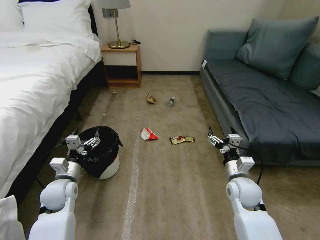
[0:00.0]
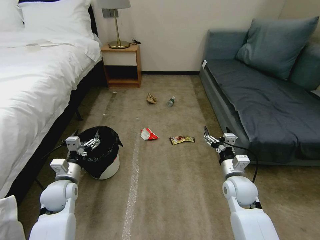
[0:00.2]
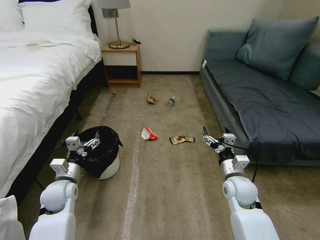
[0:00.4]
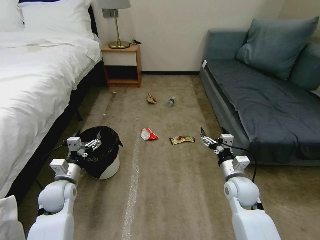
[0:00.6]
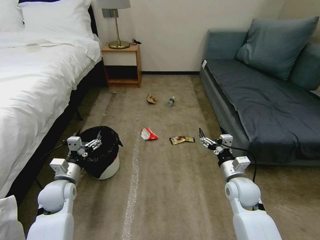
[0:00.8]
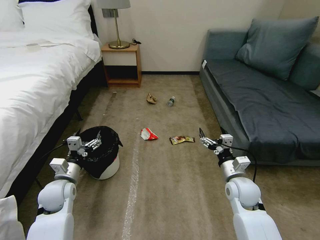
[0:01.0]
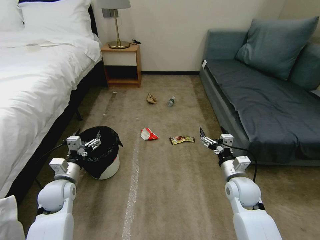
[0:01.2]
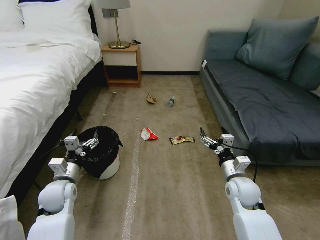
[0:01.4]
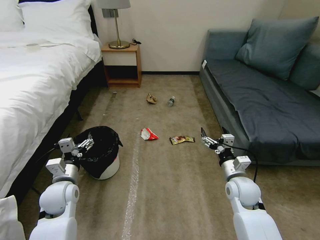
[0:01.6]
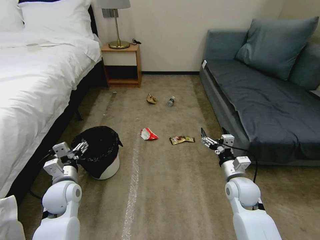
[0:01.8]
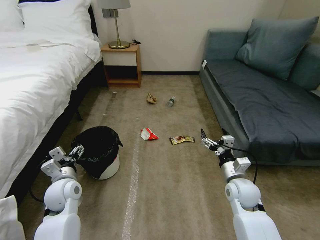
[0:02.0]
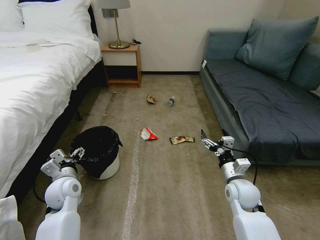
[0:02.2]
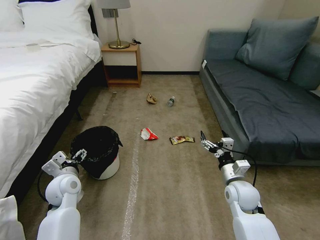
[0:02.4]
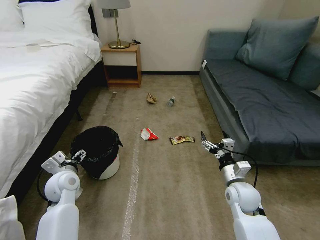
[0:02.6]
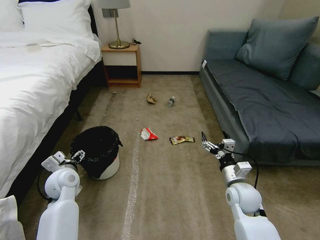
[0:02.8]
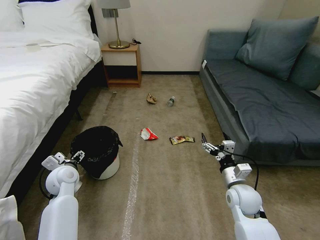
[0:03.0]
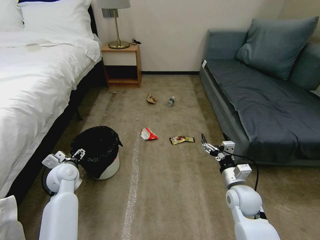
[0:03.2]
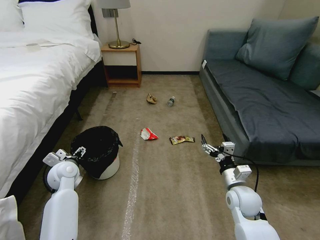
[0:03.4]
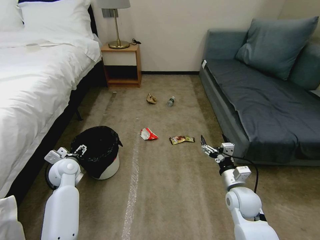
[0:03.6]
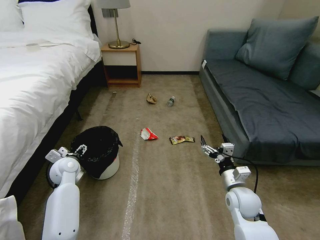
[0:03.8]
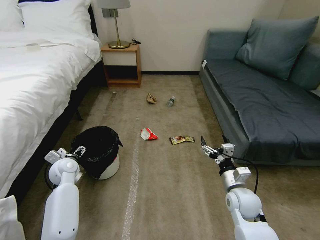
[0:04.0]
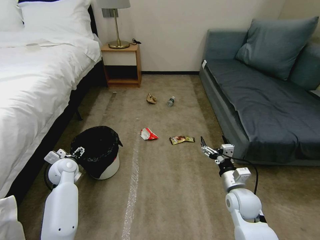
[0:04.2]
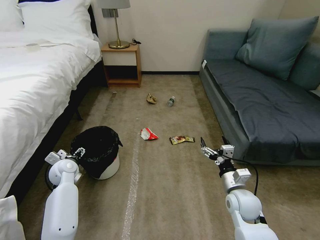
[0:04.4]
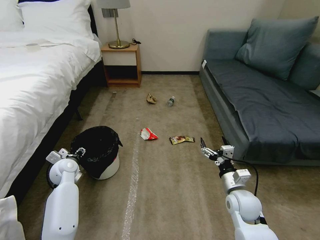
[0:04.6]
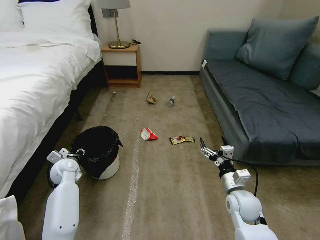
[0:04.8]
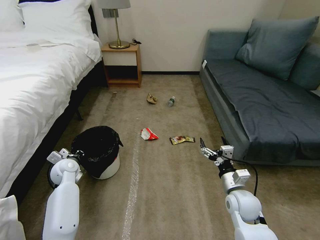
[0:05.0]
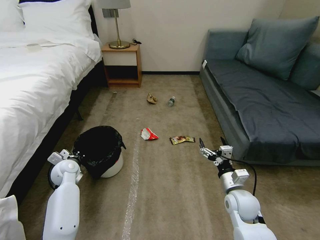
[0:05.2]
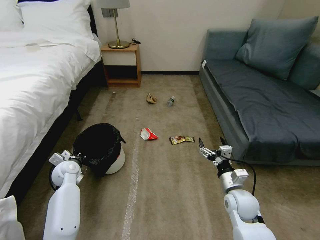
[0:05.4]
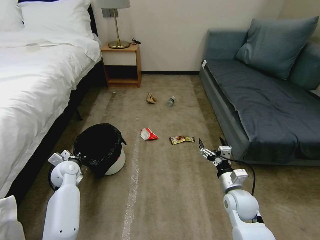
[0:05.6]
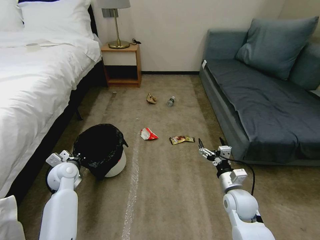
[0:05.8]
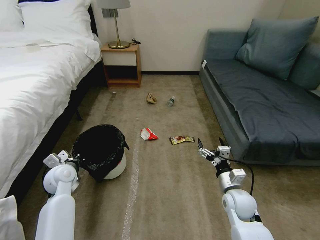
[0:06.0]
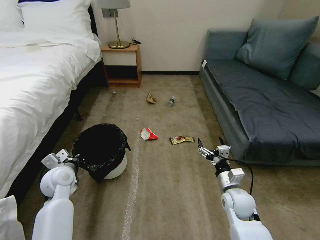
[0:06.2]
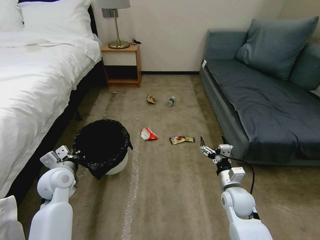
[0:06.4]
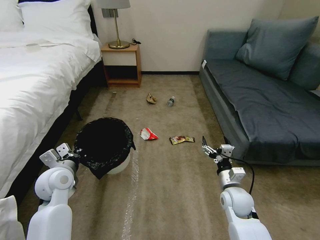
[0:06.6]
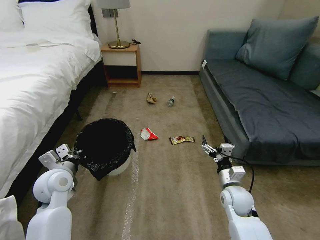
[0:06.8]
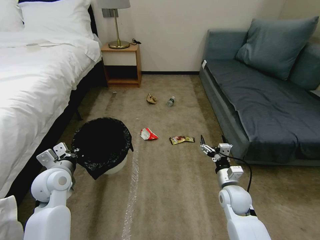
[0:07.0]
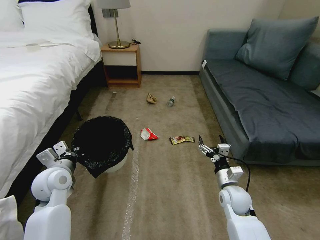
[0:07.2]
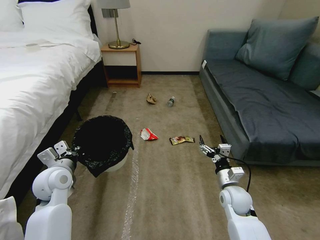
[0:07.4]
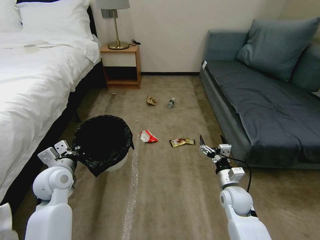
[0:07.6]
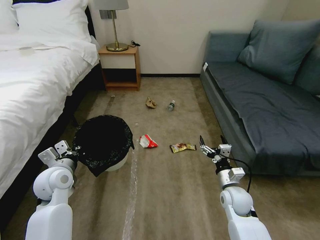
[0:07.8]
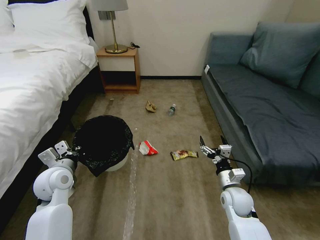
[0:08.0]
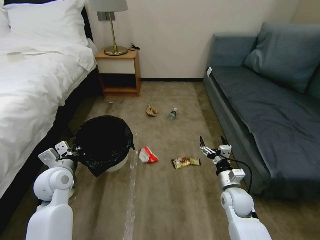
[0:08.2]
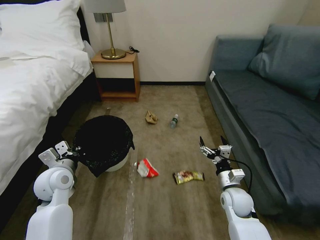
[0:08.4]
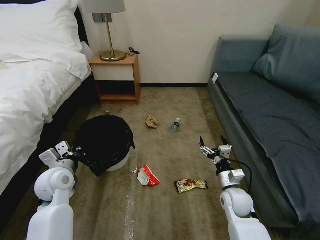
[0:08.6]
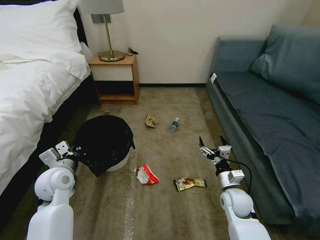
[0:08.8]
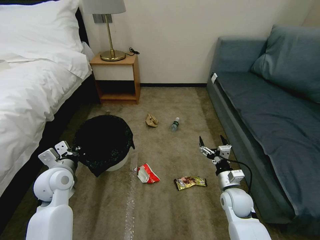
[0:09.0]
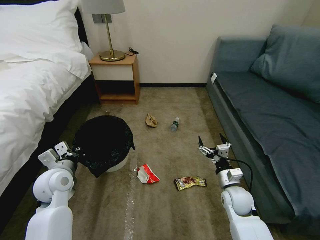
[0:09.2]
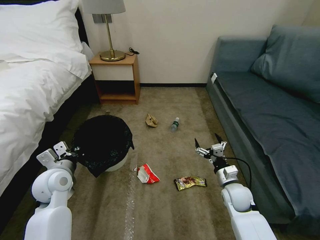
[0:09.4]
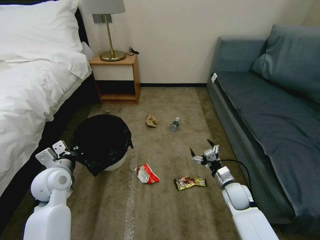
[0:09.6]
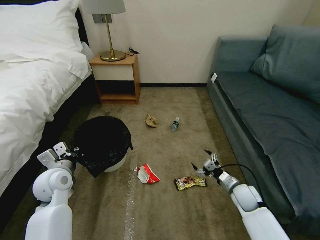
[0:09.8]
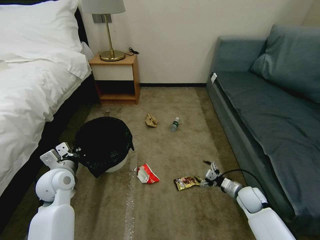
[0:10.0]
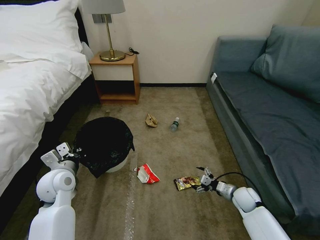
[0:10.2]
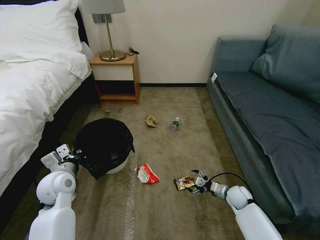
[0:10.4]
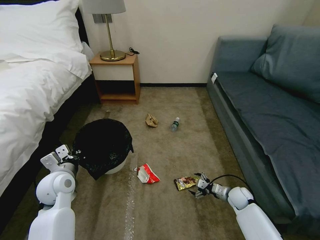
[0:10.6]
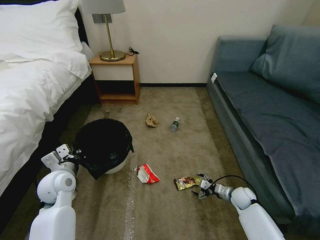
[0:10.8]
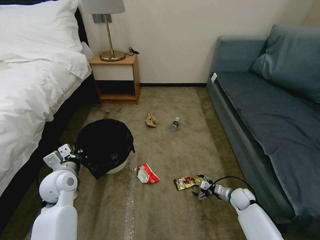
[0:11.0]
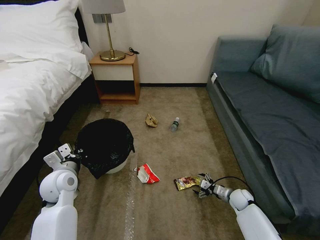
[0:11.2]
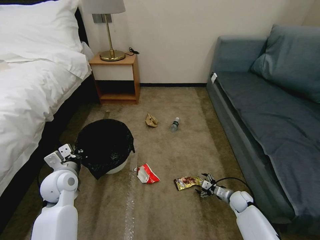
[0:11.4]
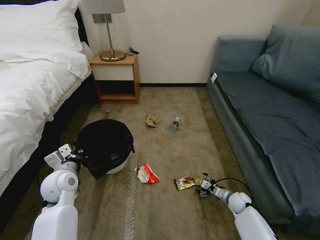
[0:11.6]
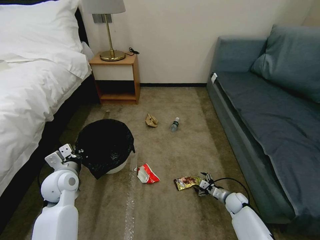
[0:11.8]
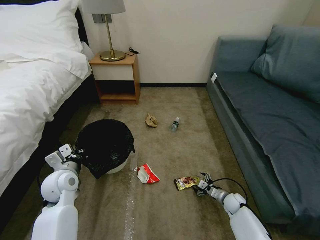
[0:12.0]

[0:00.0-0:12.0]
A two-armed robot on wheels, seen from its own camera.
Task of the whole recording: Pick up the trash bin, then pick up the garbage on the floor and place it into the trash bin.
0:01.6 to 0:03.0: The left gripper goes some 5 cm forward.
0:03.0 to 0:04.4: The left gripper ends up about 5 cm from where it was.
0:04.4 to 0:06.0: The left gripper changes place by roughly 5 cm, and closes up.
0:06.0 to 0:07.6: The left gripper travels upward by about 5 cm.
0:09.0 to 0:10.4: The right gripper goes roughly 15 cm downward, to the right and forward.
0:10.4 to 0:12.0: The right gripper goes about 5 cm downward.

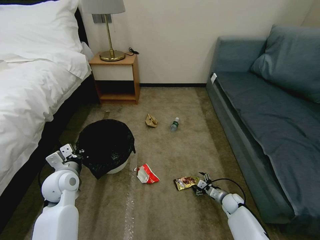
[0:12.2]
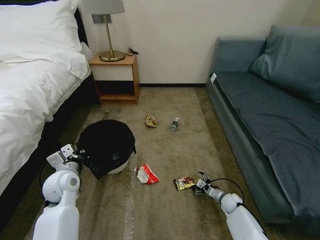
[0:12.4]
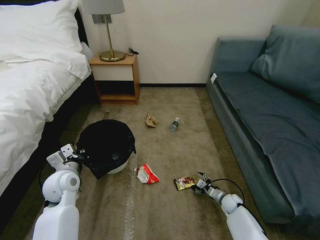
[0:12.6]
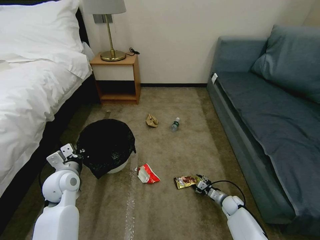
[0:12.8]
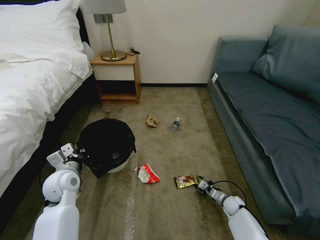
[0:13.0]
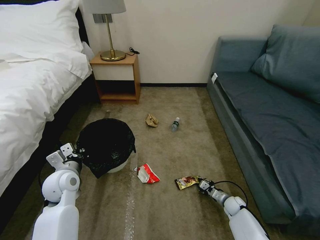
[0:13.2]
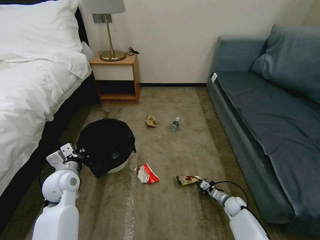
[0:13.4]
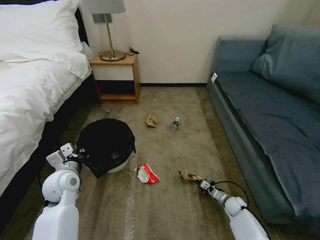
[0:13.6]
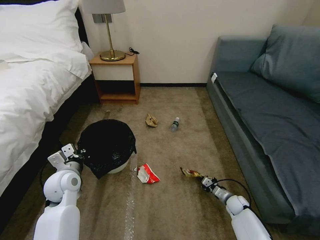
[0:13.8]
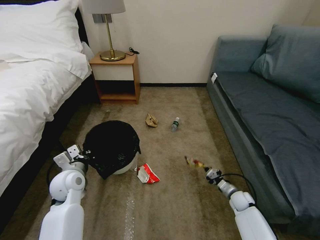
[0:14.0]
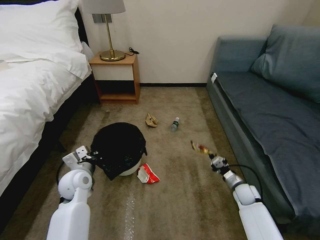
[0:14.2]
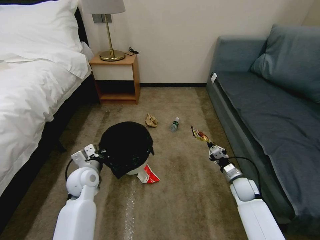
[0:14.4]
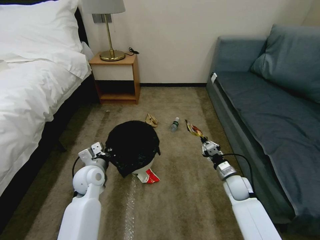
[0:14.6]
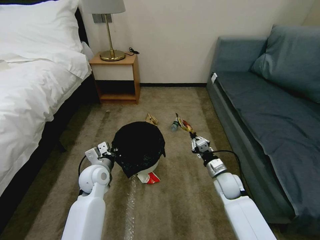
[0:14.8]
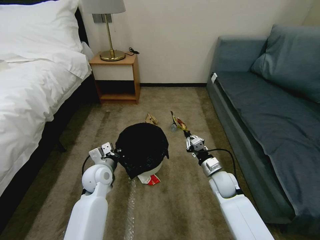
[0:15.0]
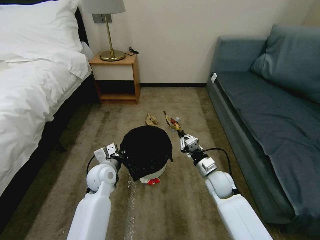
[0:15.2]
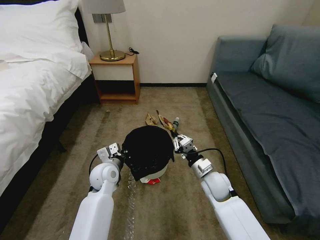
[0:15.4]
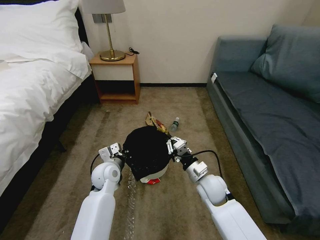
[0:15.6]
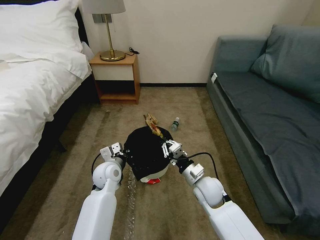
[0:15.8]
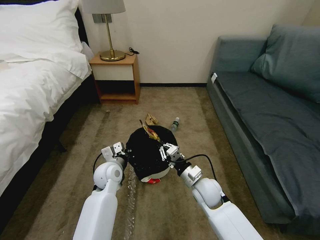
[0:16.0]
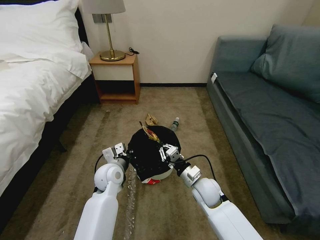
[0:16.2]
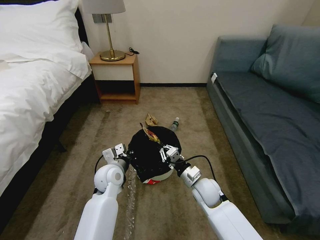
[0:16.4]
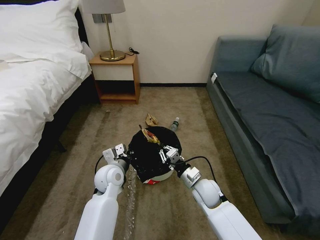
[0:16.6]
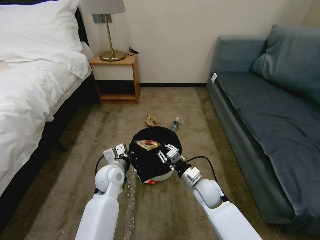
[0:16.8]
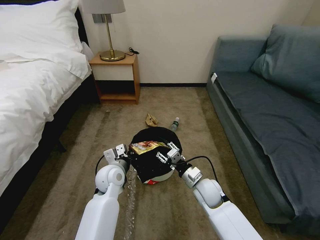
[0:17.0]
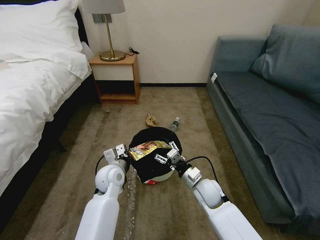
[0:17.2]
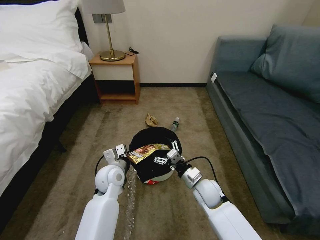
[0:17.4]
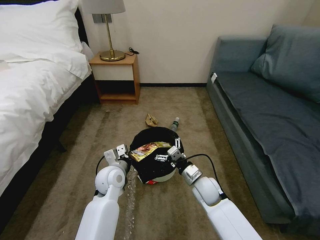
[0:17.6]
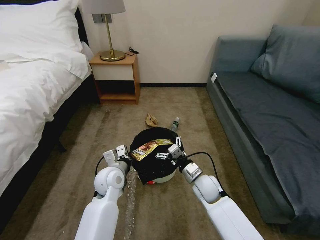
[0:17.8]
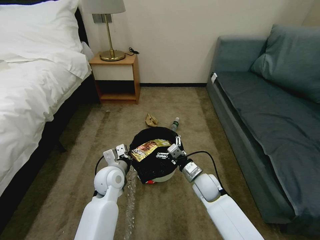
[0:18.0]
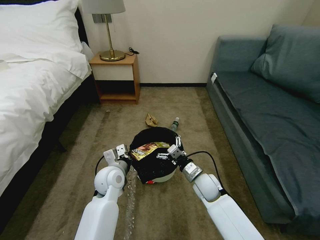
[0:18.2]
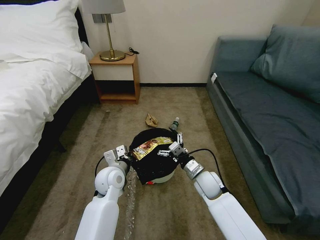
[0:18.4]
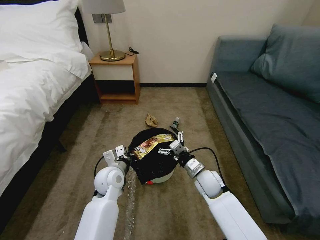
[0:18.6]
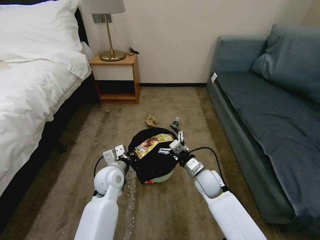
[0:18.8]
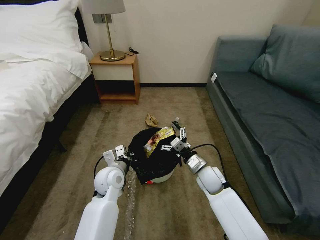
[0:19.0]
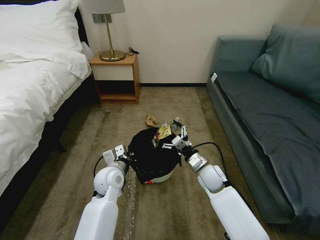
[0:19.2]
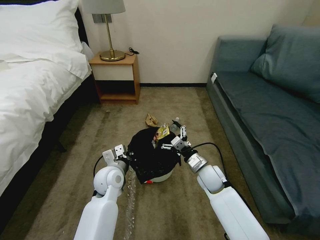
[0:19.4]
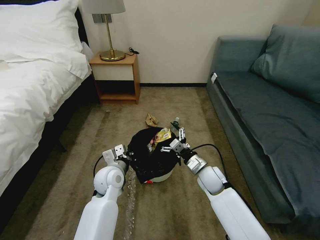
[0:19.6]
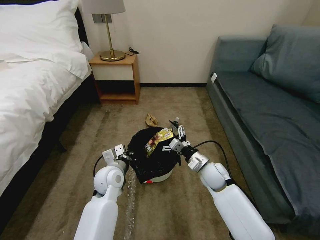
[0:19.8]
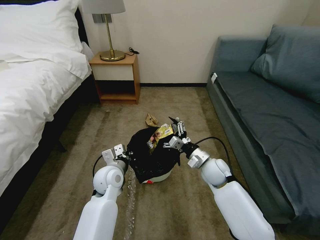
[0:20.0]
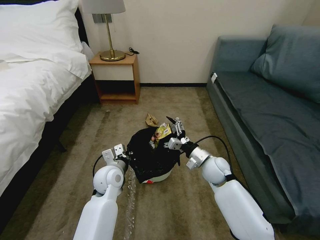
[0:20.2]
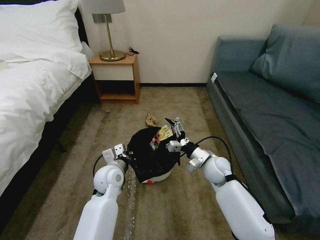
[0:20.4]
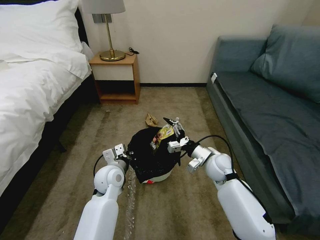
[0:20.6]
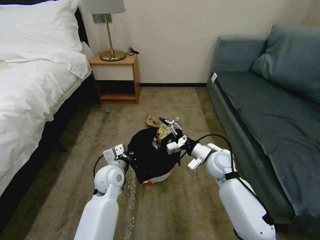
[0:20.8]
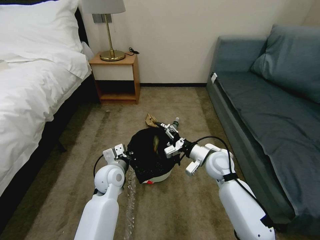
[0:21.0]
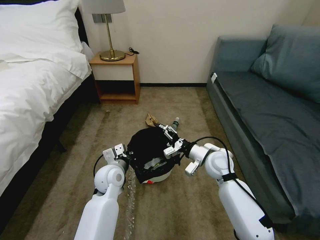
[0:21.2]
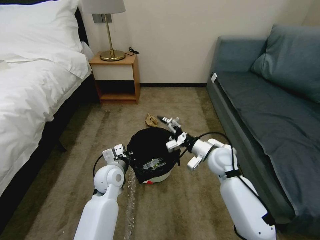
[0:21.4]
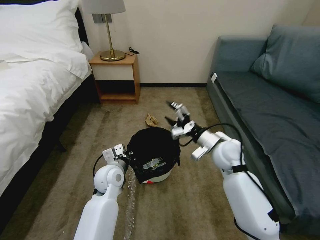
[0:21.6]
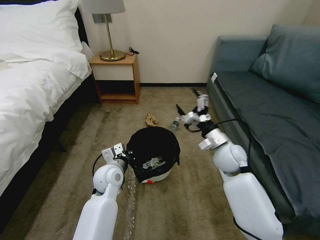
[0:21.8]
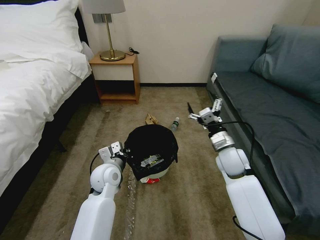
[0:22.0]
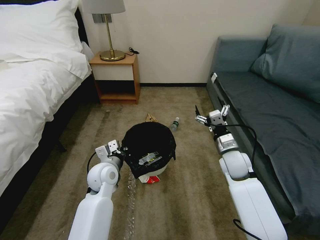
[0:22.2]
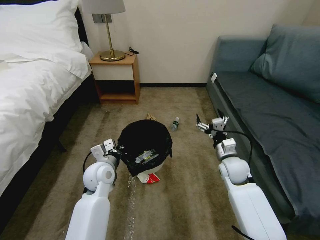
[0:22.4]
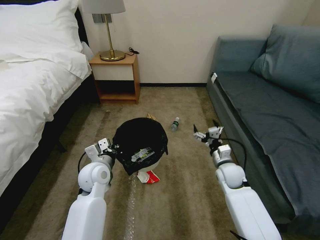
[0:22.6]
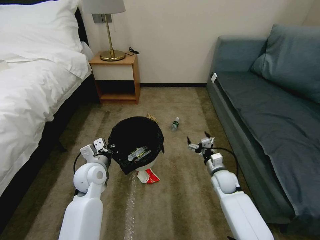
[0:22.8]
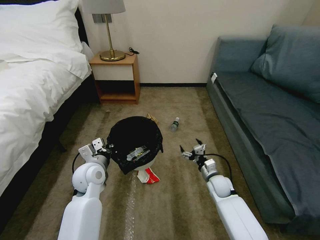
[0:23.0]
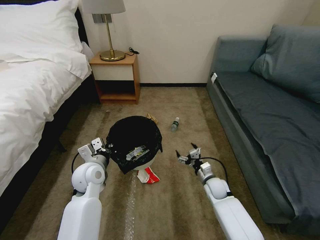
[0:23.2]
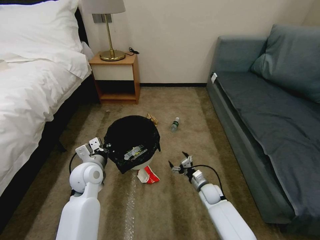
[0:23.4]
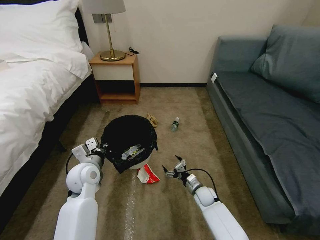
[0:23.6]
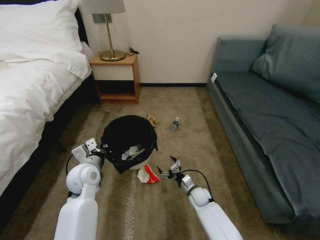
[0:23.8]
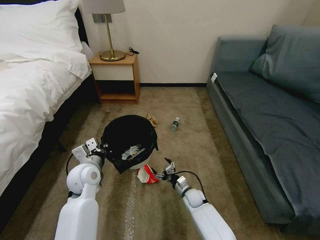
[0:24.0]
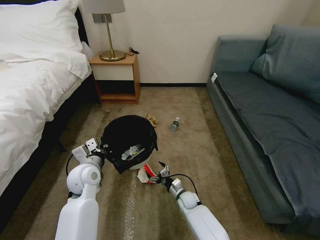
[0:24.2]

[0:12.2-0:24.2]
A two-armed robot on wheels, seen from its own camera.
Task of the whole recording: Pick up the trash bin, then pick up the garbage on the floor and place it into the trash bin.
0:12.2 to 0:13.8: The right gripper closes its fingers.
0:13.8 to 0:15.2: The right gripper travels upward and to the left by approximately 25 cm. Meanwhile the left gripper goes some 10 cm to the right.
0:15.2 to 0:16.6: The right gripper is displaced to the left by roughly 5 cm.
0:16.6 to 0:18.2: The right gripper opens up.
0:18.2 to 0:19.8: There are only small adjustments of the grippers.
0:19.8 to 0:21.2: The right gripper shifts roughly 5 cm upward.
0:21.2 to 0:22.6: The right gripper goes roughly 10 cm downward and to the right. The left gripper moves some 5 cm.
0:22.6 to 0:24.2: The right gripper goes approximately 25 cm downward and to the left.
